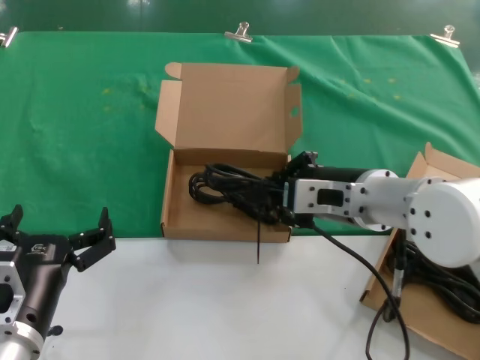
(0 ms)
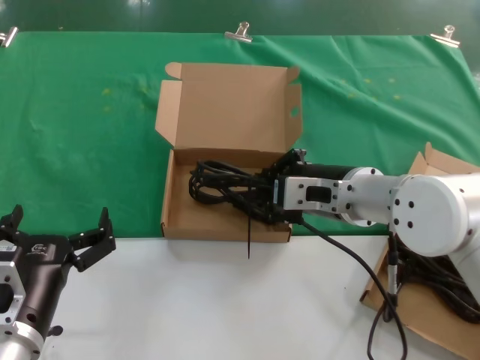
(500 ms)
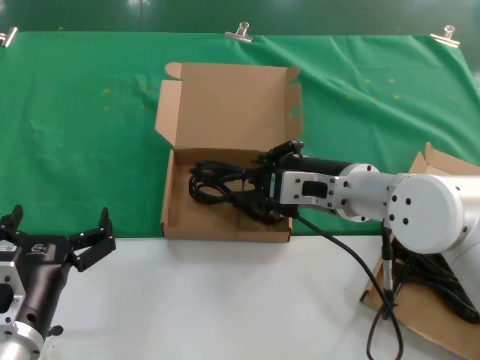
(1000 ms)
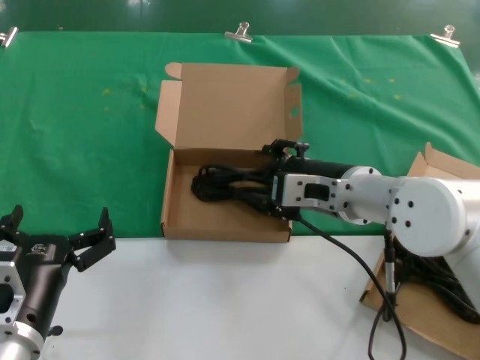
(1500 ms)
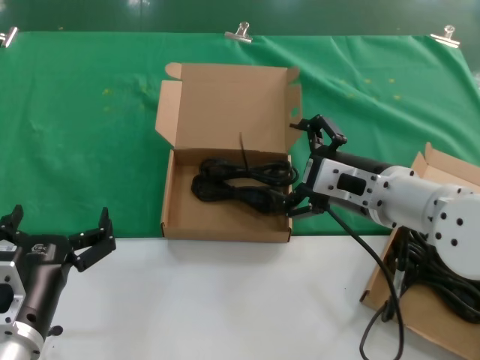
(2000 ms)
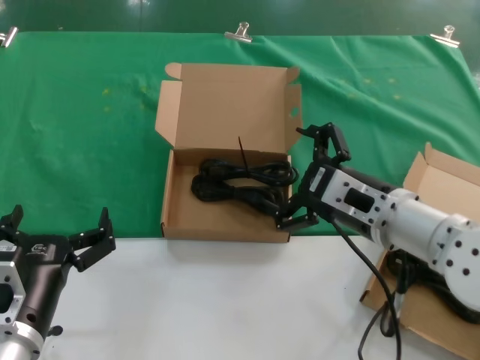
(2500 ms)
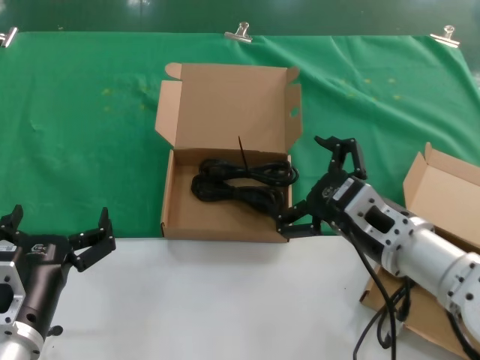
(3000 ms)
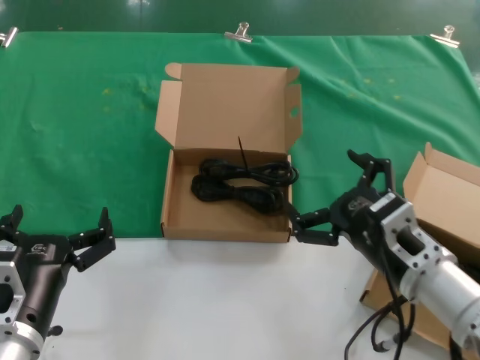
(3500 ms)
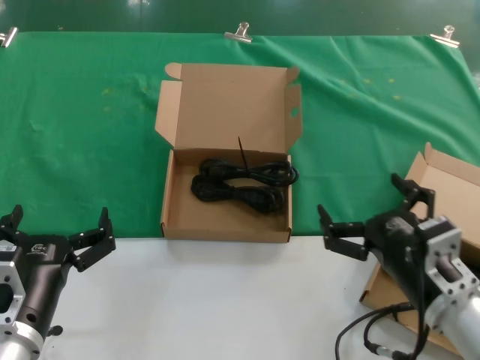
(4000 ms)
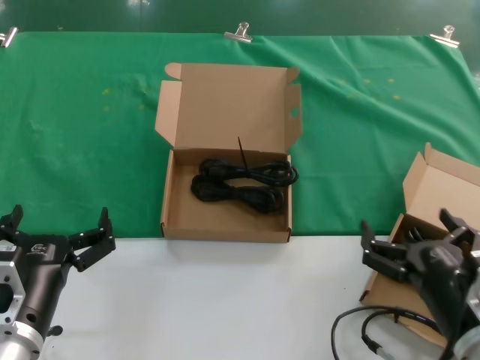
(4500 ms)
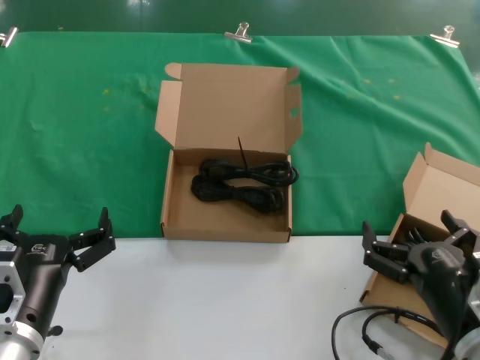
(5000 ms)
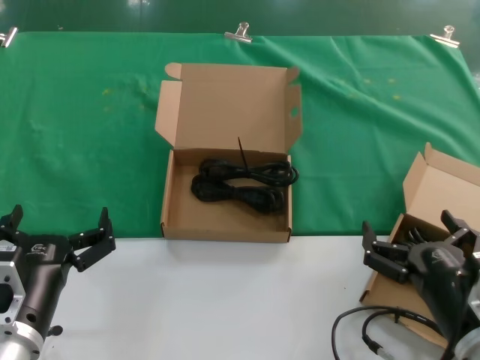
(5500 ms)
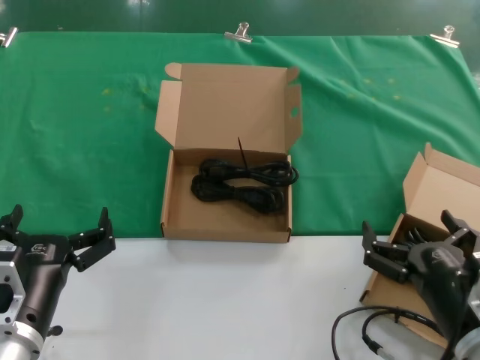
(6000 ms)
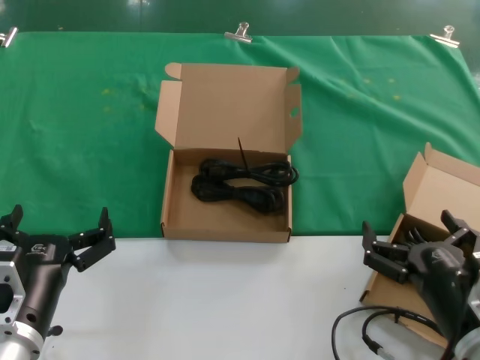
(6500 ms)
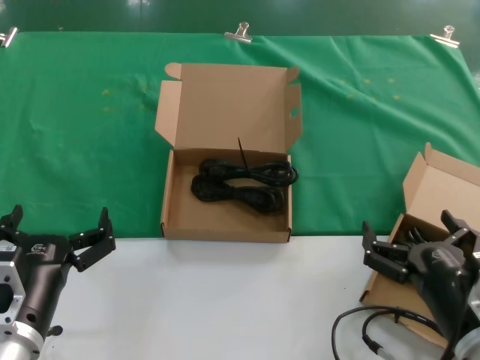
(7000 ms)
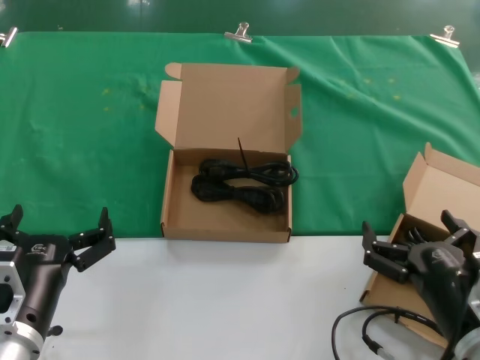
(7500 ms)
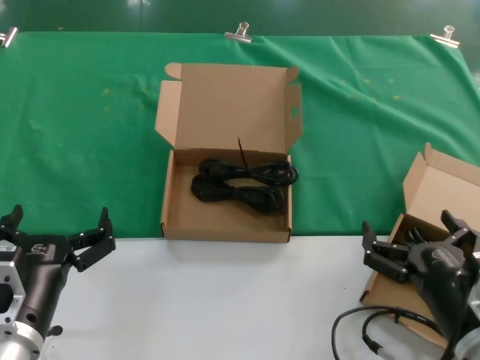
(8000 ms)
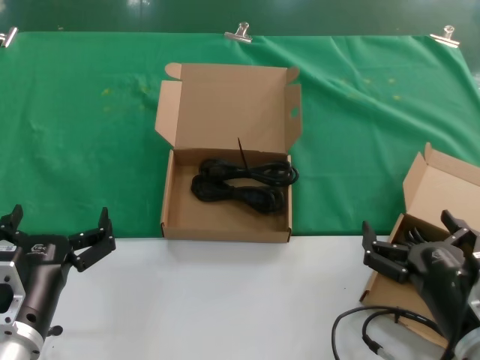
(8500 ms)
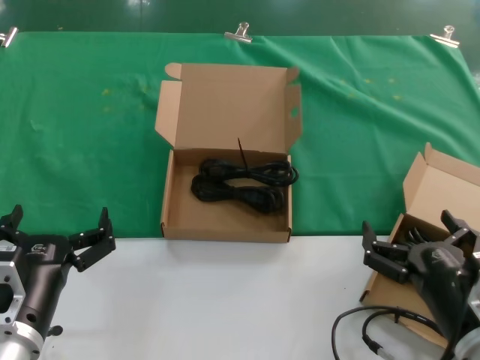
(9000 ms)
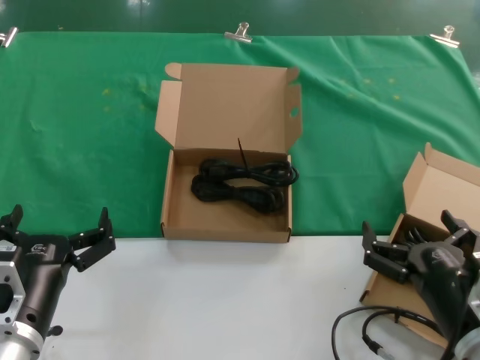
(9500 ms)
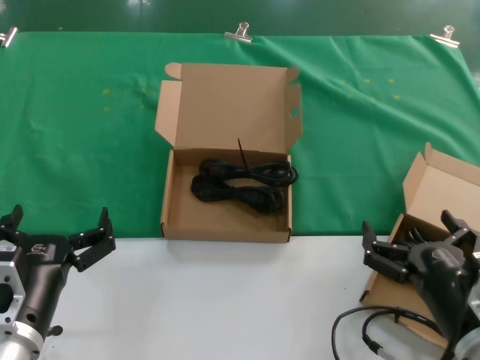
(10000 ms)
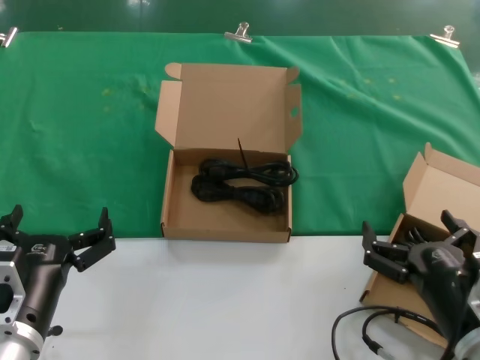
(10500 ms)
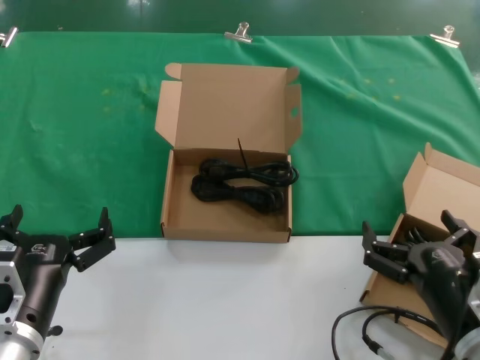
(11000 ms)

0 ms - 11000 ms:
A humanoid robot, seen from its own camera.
Task of the whole recording: take the parts from the box containing them and put them into an empty box.
0 ms - 2000 ms: The hands move only a little.
2000 ms - 3500 ms: The right hand travels downward and backward by about 10 cm.
3500 ms - 5500 ms: The right hand is displaced backward and downward by some 10 cm.
5500 ms - 11000 ms: The two hands keep their place.

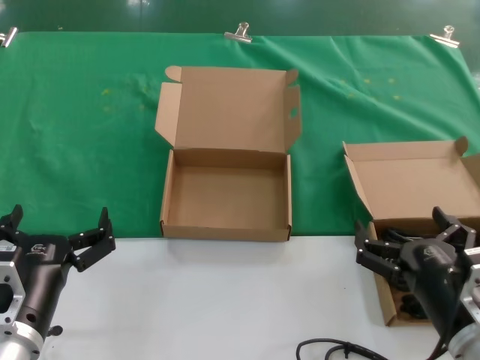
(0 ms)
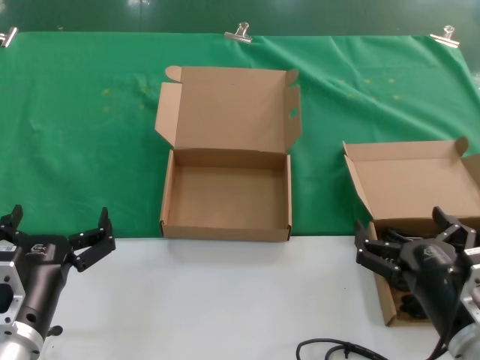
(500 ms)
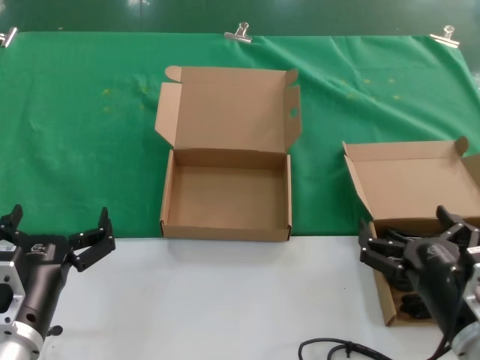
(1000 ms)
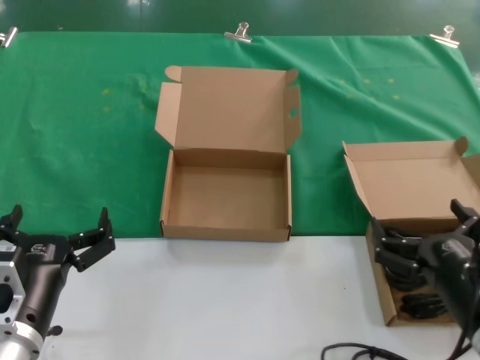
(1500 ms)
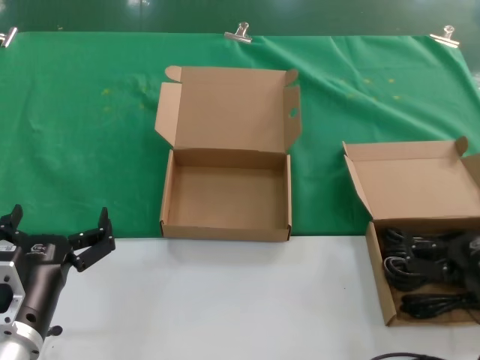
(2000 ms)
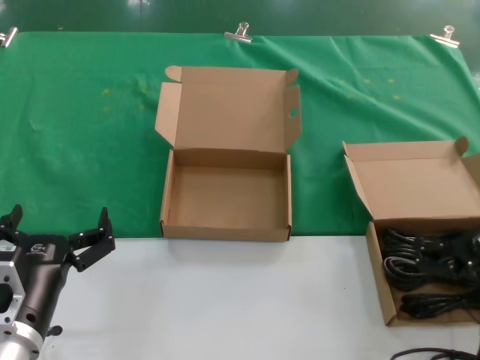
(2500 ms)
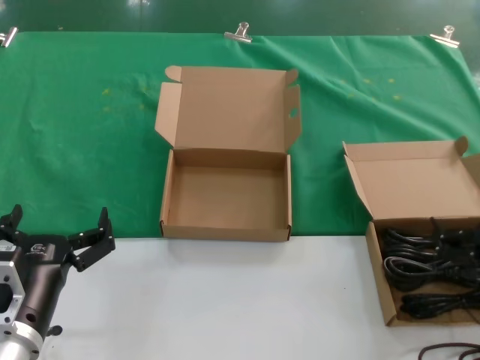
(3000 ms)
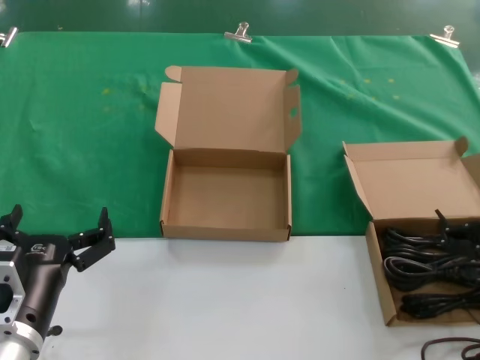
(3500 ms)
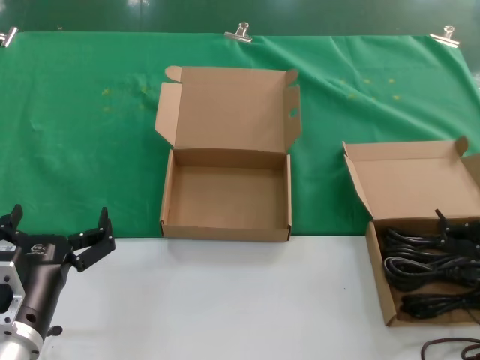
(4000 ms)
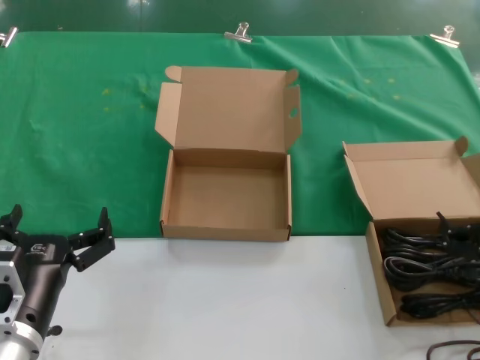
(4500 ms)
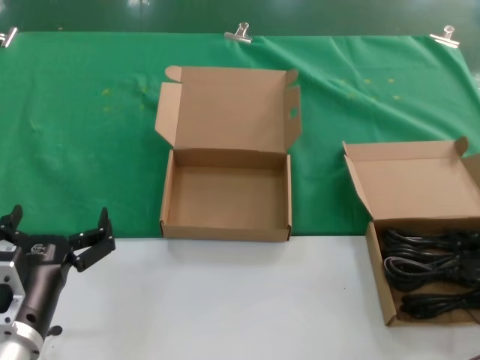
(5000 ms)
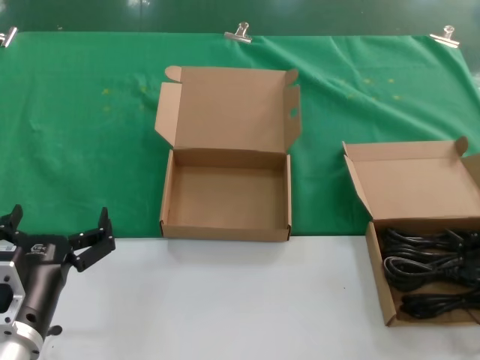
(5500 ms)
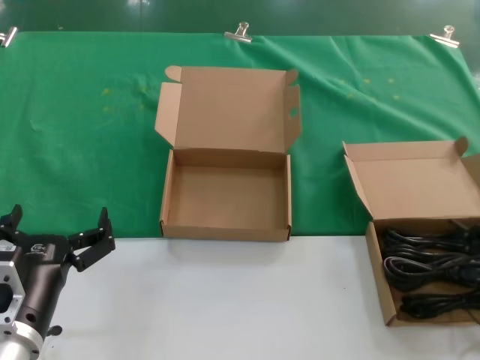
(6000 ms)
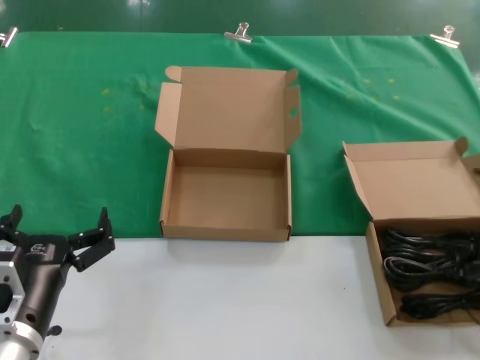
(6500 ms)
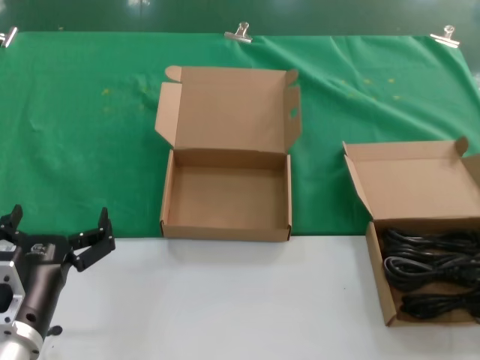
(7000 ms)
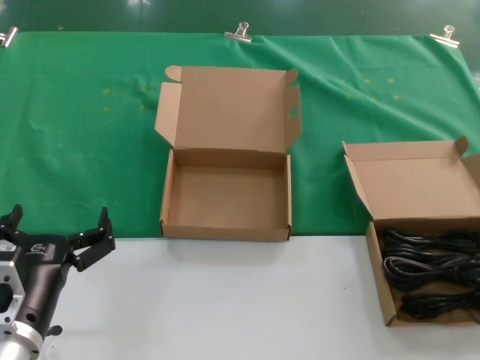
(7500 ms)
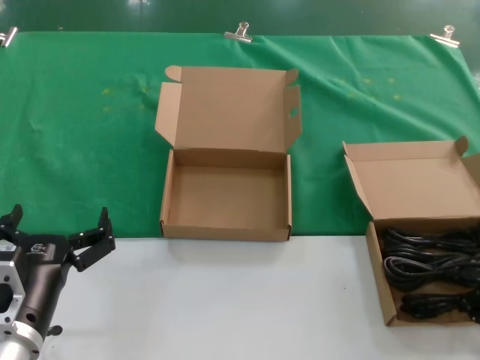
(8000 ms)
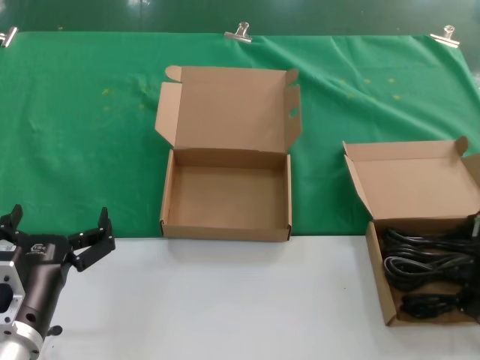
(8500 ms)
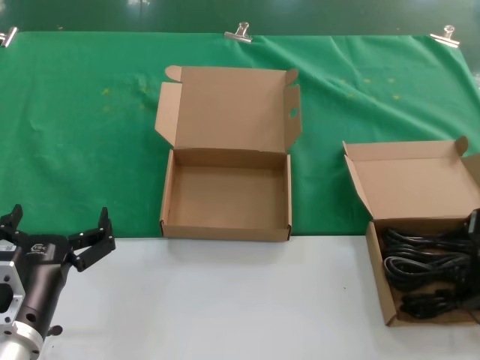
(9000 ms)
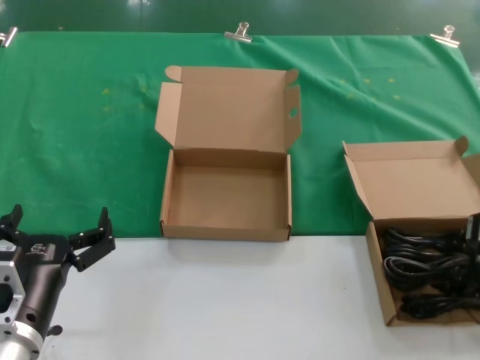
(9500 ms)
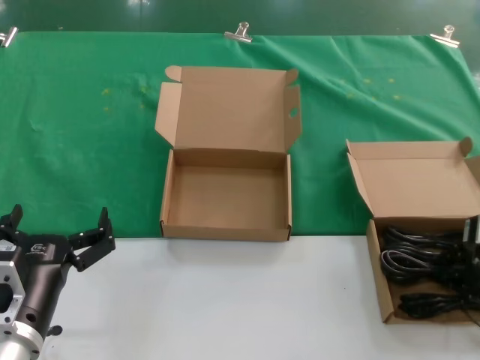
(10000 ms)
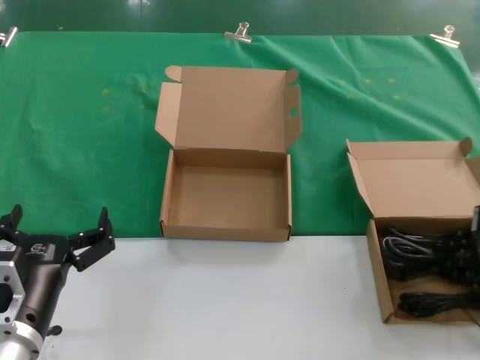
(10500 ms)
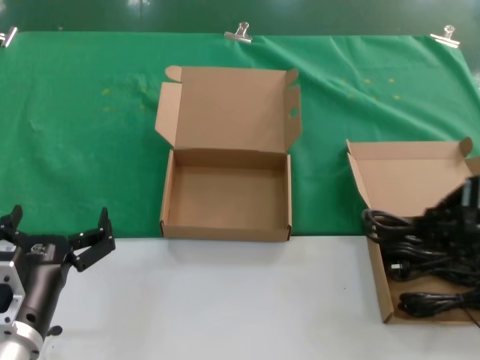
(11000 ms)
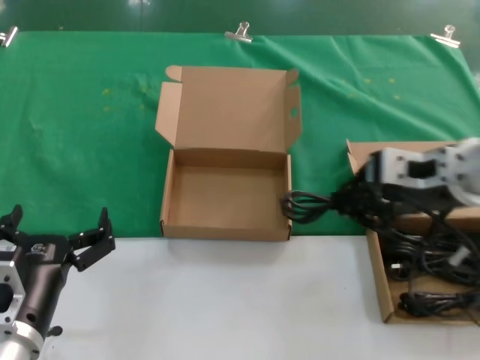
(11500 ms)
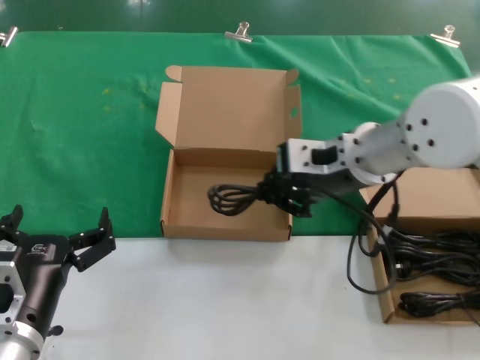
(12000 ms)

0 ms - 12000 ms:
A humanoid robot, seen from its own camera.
Task of the whole recording: take the parts from the box containing them and put them into an empty box.
Step, 0 ms - 9500 ms: Grasp the data cable.
0 ms - 2000 ms: The right hand changes place by about 5 cm.
2000 ms - 4000 ms: The right hand changes place by about 5 cm.
8000 ms - 10000 ms: The hands stay close to where they were, moving slightly.
10000 ms - 12000 ms: The right hand moves to the left and upward, roughly 25 cm.

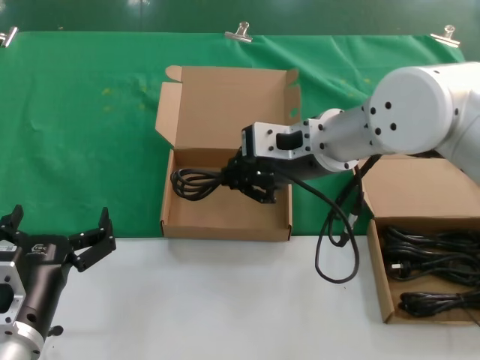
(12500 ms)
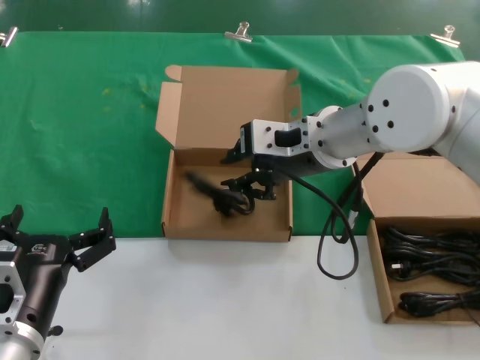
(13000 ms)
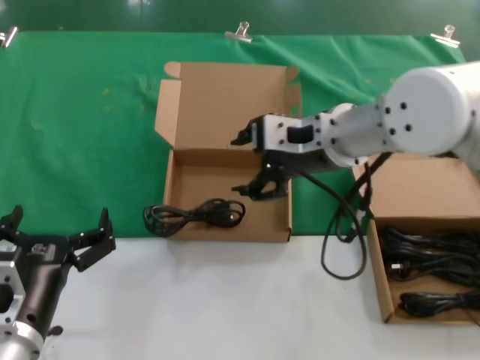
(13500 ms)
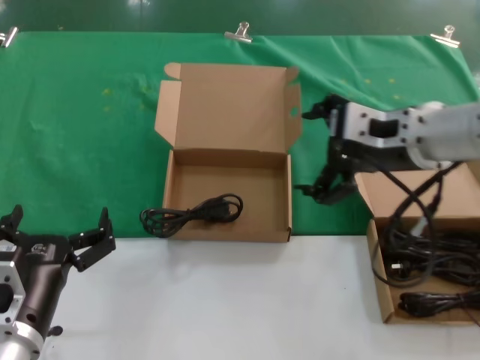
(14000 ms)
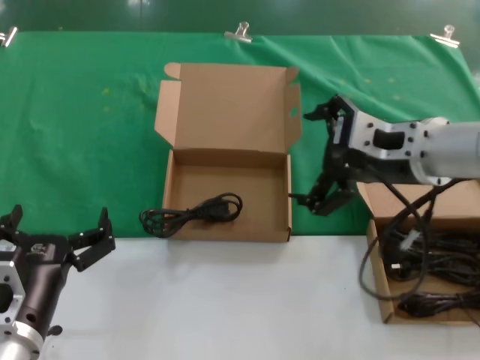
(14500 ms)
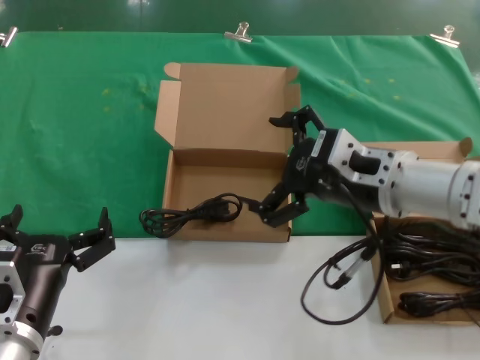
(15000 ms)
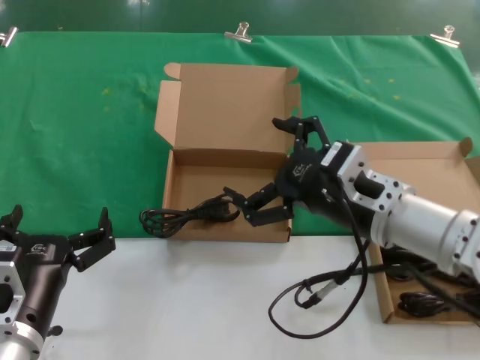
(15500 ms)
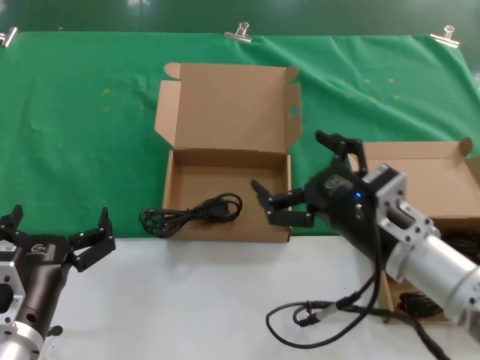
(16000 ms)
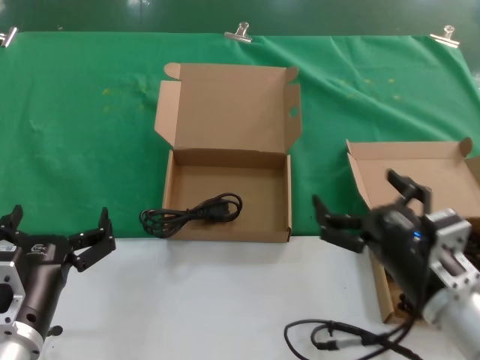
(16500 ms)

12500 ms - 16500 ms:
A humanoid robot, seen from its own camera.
Task of the whole recording: take the parts from the box containing them and put them into an empty box.
12500 ms - 14500 ms: The right hand goes approximately 10 cm to the right and backward.
14500 ms - 16500 ms: The right hand moves downward and backward, approximately 20 cm.
